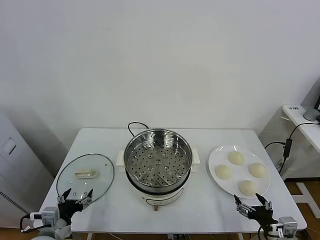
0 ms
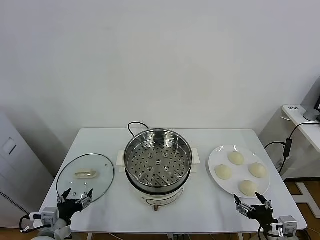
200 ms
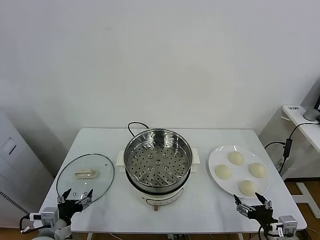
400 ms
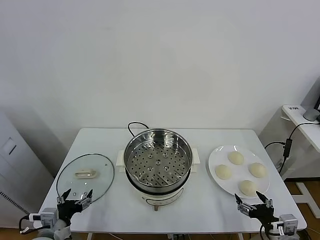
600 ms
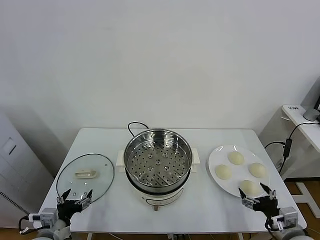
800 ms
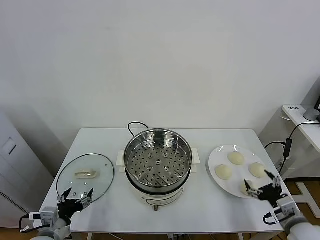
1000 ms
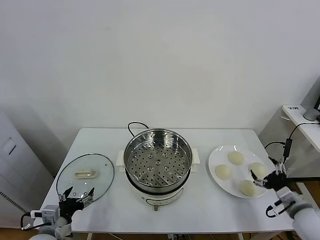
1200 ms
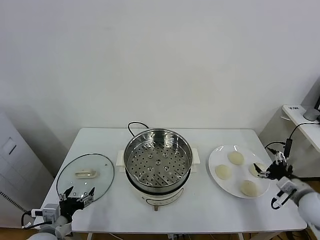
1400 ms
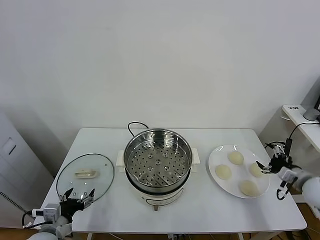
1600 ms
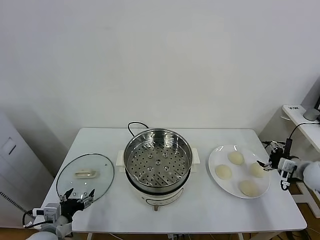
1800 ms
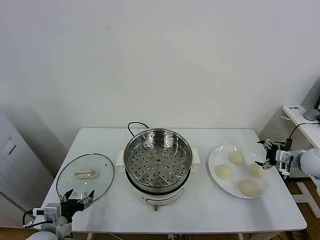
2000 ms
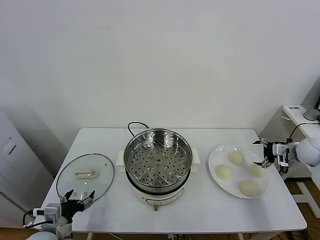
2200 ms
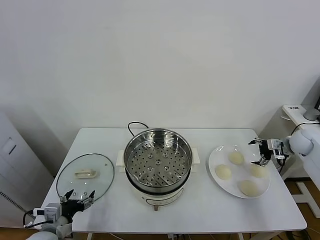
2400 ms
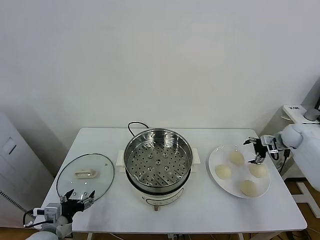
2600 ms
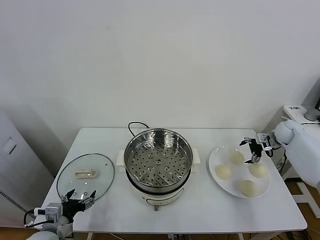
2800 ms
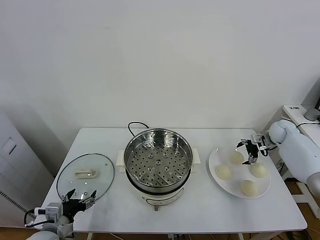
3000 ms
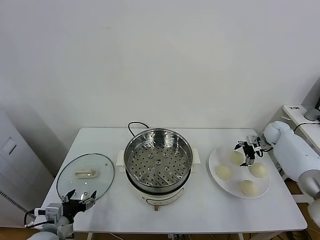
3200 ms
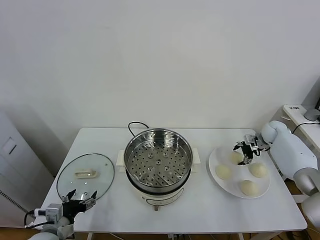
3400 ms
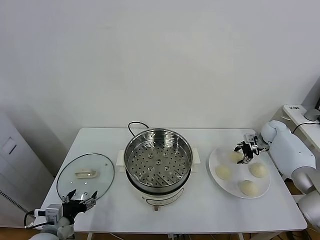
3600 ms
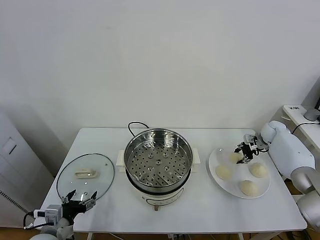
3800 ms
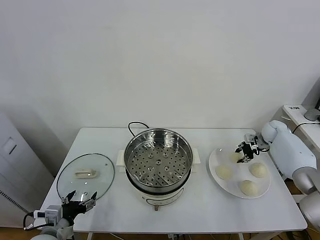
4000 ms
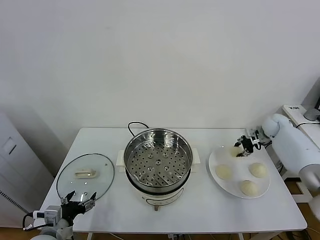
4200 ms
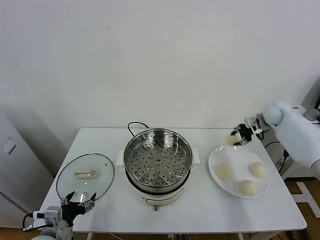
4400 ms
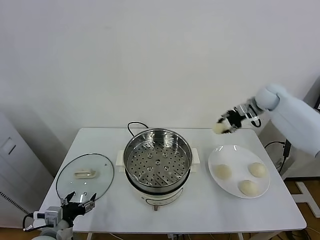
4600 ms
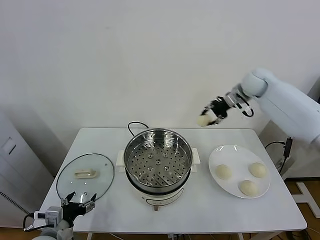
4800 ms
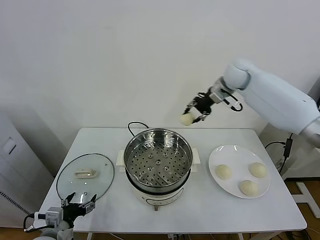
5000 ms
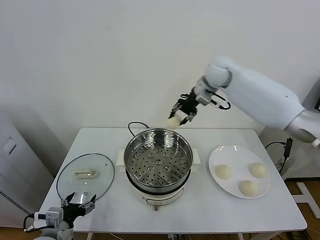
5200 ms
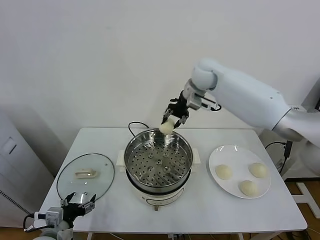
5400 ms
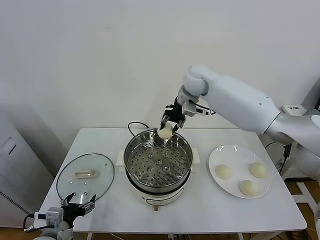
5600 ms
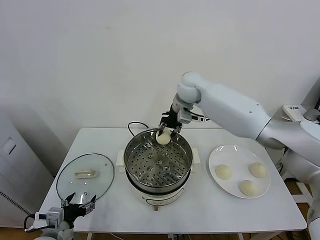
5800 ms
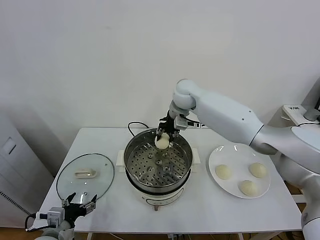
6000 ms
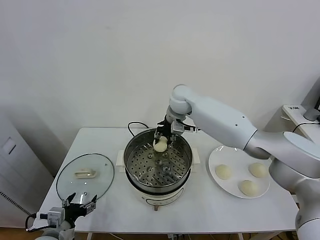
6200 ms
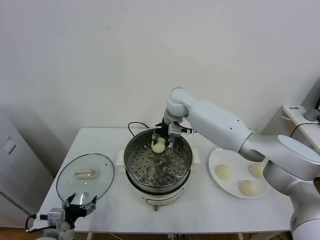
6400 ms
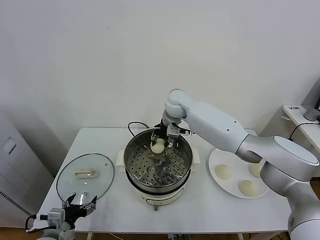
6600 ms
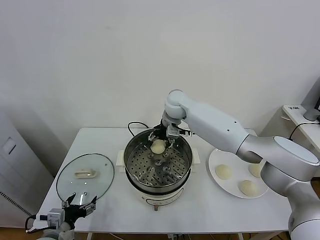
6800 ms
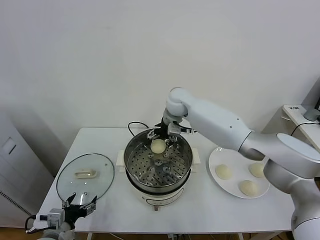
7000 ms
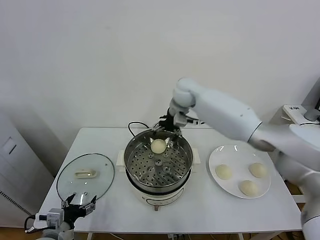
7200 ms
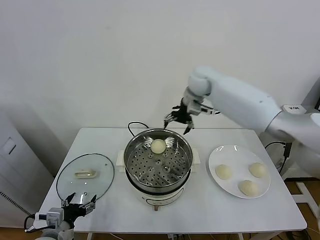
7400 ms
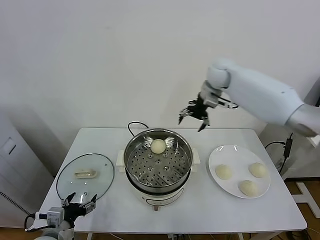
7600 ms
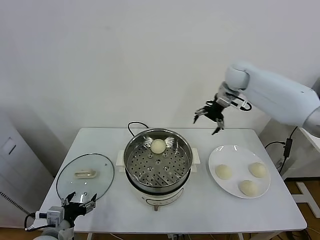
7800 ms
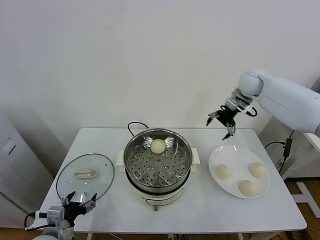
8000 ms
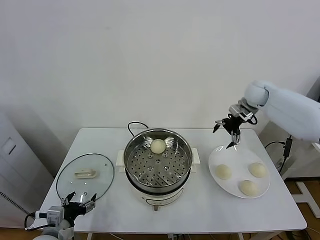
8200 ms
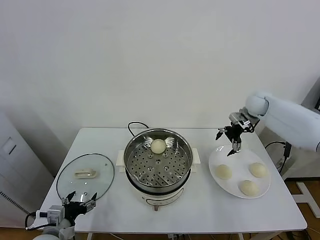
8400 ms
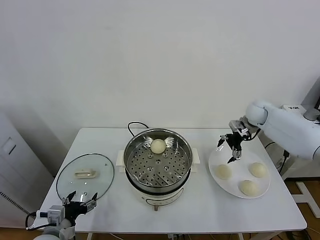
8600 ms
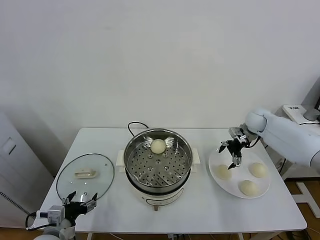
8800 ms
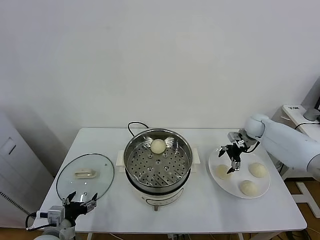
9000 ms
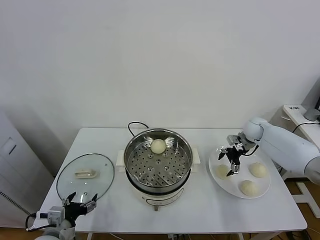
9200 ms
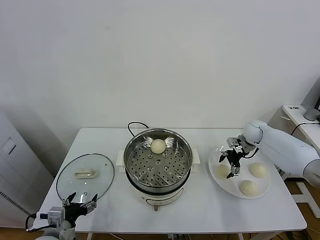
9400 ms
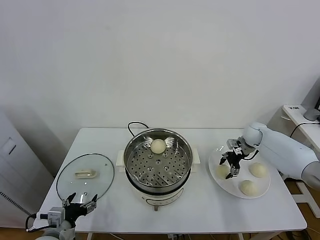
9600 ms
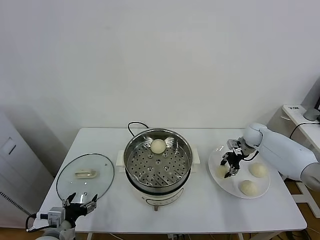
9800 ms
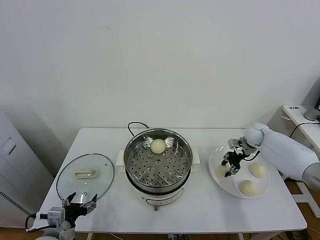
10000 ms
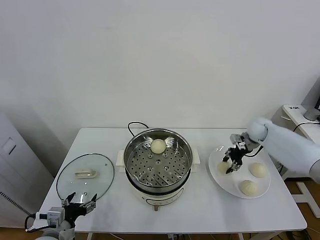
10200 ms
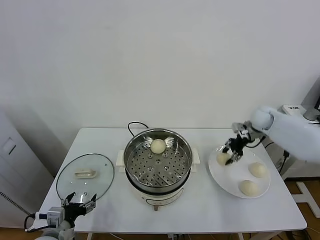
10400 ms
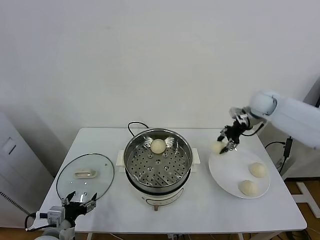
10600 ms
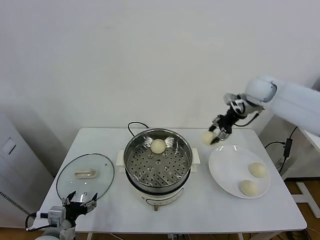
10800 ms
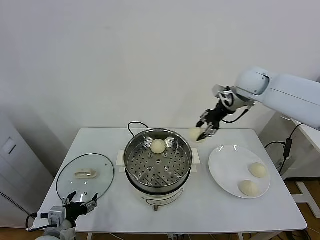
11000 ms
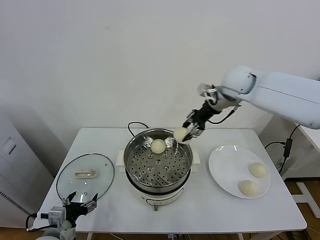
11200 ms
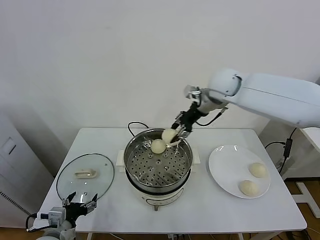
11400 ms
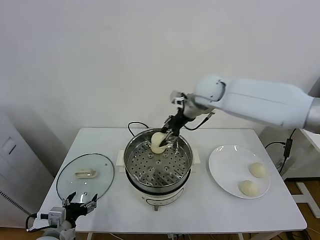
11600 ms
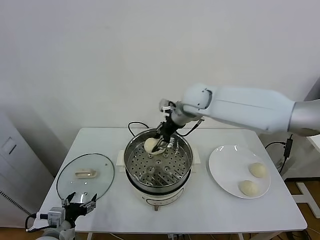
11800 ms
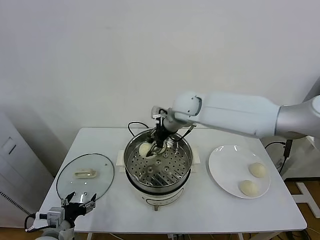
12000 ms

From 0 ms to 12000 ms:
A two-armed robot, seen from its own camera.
Task of the whole recording: take steamed baozi put them in steamer.
Step, from 0 ms to 3800 ms: Grasp the baozi in the plate with right gripper.
Step, from 4000 ms to 7000 ms: Place the baozi on the steamer with right gripper.
Step, from 7200 ms to 9800 ms: Grasp the baozi in the plate with right gripper.
From 1600 ms to 3000 ms: The right gripper goes approximately 25 cm forward.
From 3000 ms to 4400 ms: The right gripper goes about 15 cm upward and to the left, and closes its fingers.
From 4400 ms to 6000 ms: The right gripper travels to the left by about 35 cm.
From 6000 ms to 7600 ms: The right gripper moves to the right and upward, about 15 cm, and opens.
From 7600 ms to 9000 ms: The right gripper heads downward and to the right, covering some 25 cm.
From 9000 ms to 10400 ms: The right gripper moves upward, some 10 cm, and closes up.
From 10400 ms to 12000 ms: The right gripper travels to the left by roughly 30 cm.

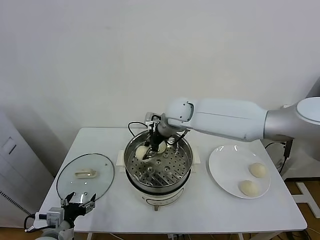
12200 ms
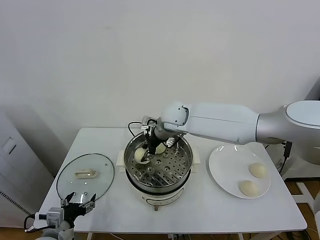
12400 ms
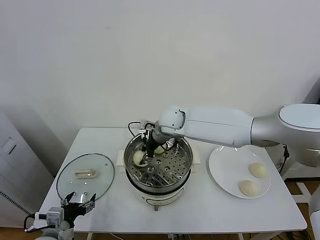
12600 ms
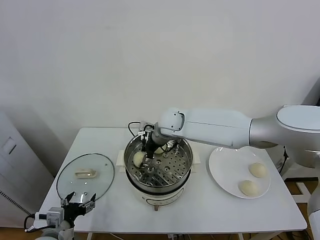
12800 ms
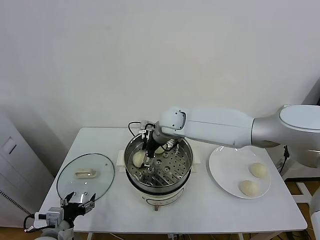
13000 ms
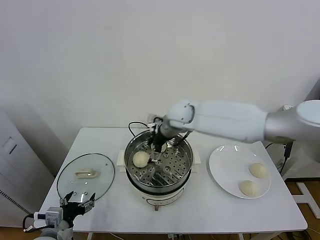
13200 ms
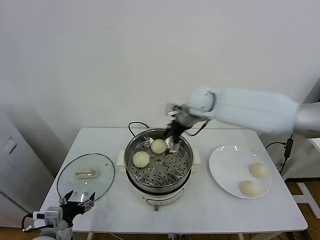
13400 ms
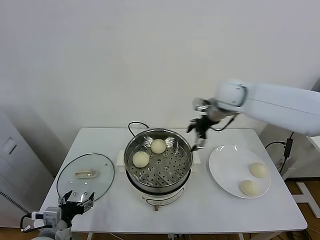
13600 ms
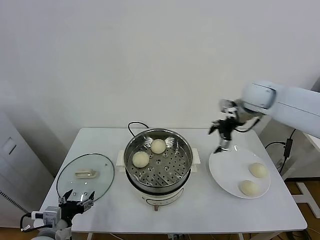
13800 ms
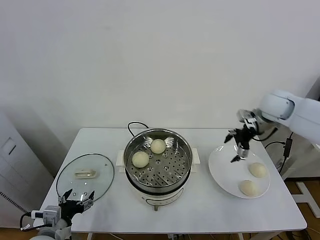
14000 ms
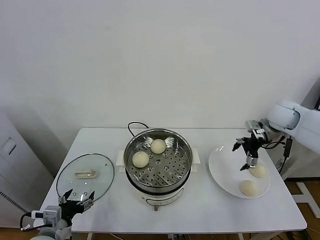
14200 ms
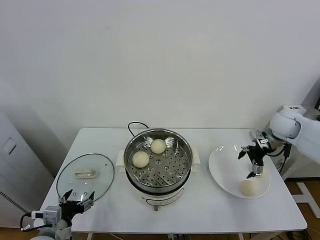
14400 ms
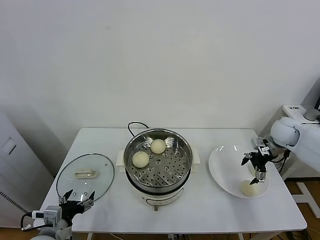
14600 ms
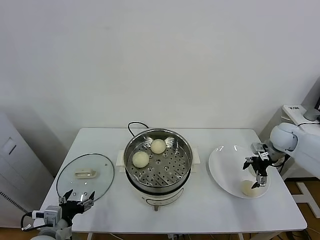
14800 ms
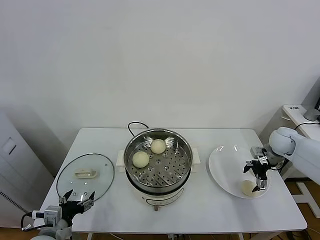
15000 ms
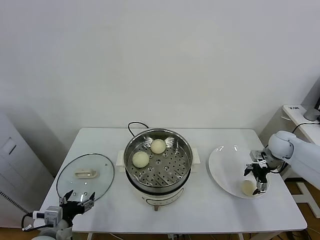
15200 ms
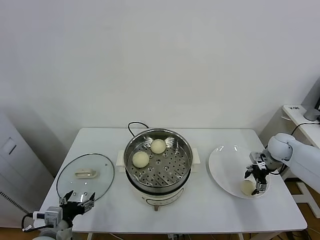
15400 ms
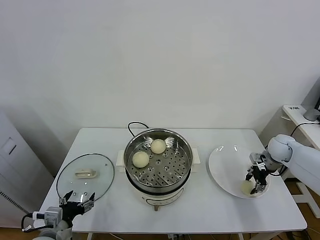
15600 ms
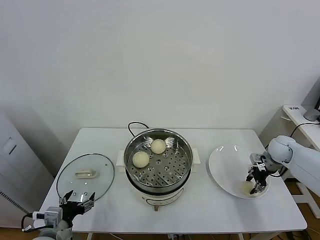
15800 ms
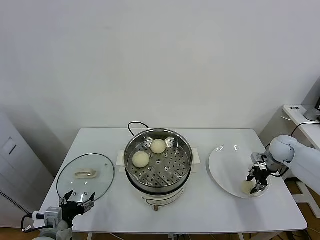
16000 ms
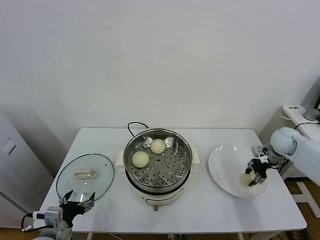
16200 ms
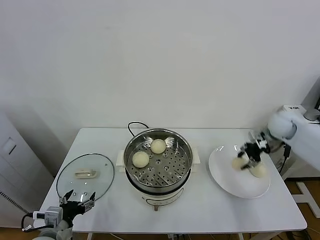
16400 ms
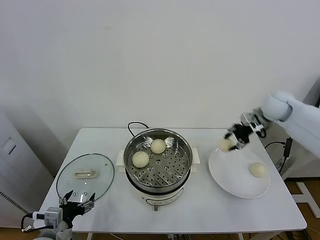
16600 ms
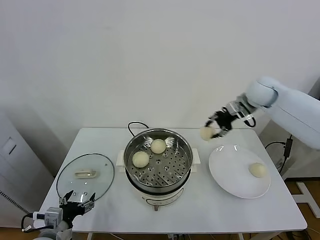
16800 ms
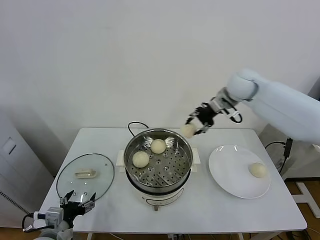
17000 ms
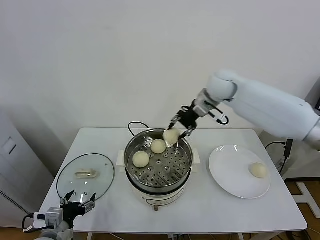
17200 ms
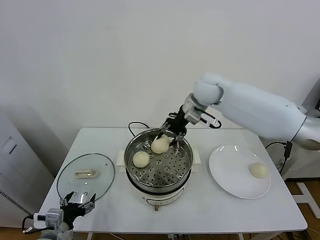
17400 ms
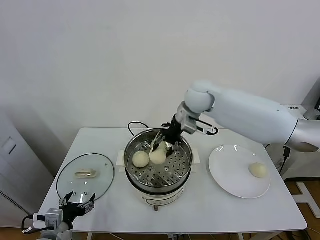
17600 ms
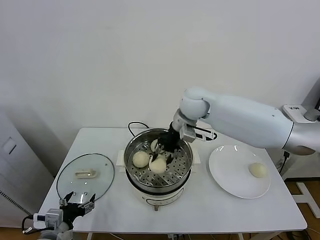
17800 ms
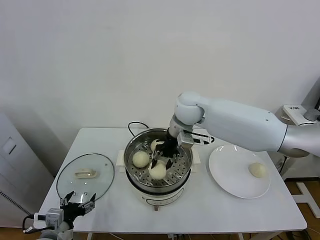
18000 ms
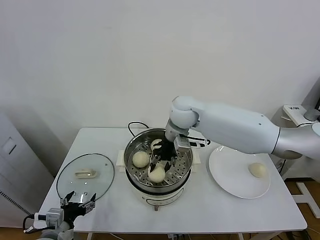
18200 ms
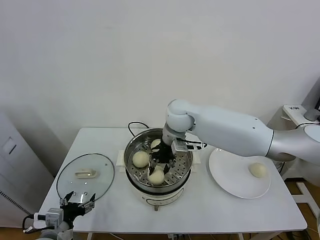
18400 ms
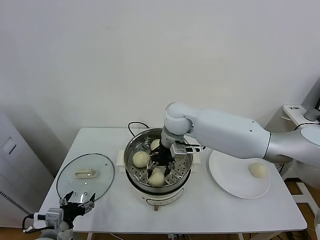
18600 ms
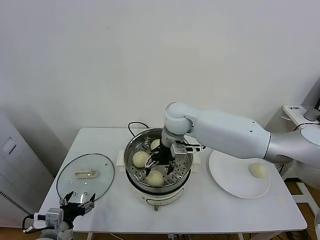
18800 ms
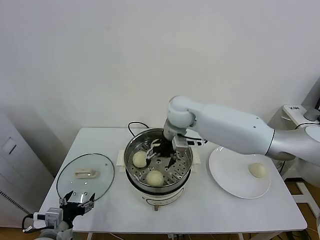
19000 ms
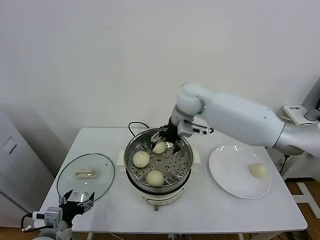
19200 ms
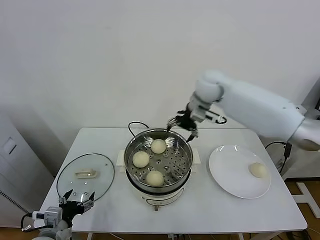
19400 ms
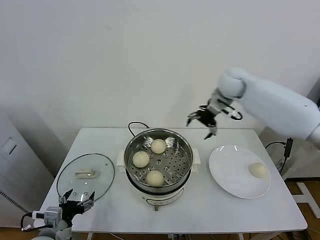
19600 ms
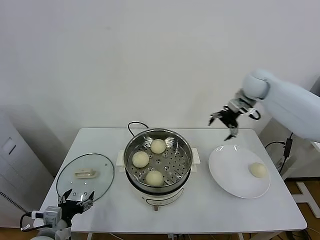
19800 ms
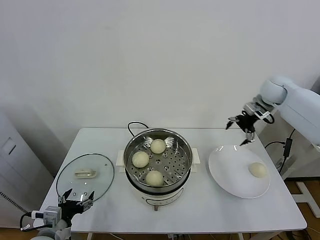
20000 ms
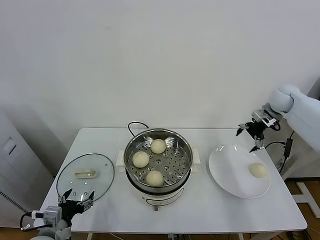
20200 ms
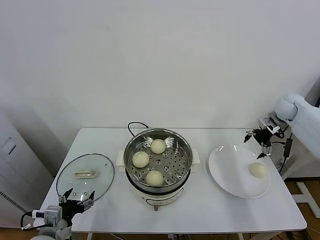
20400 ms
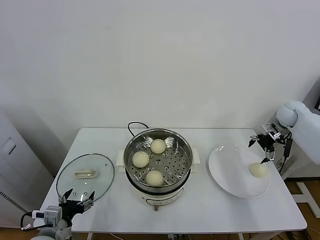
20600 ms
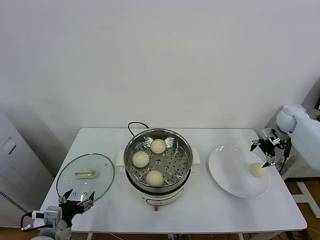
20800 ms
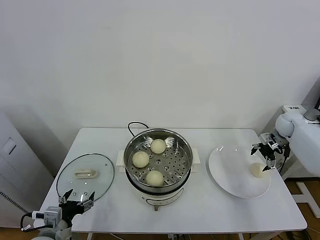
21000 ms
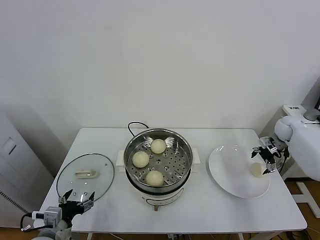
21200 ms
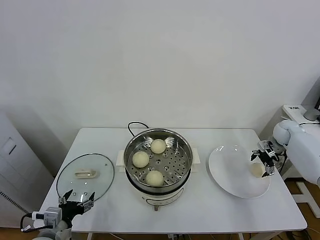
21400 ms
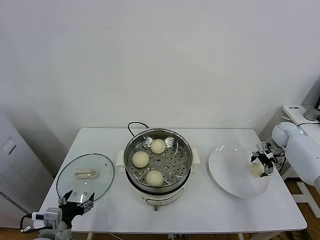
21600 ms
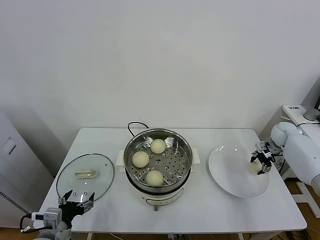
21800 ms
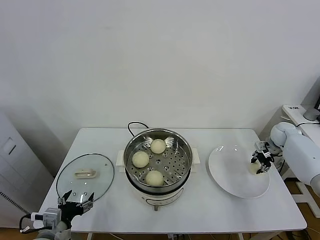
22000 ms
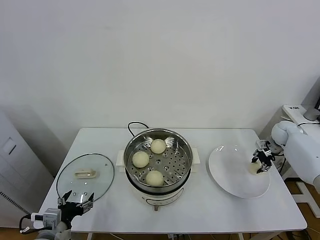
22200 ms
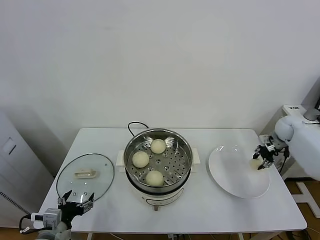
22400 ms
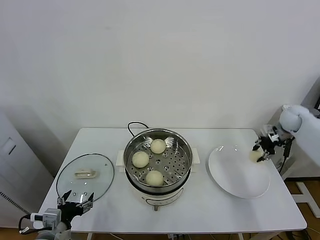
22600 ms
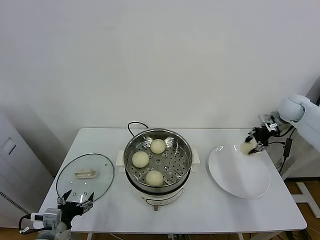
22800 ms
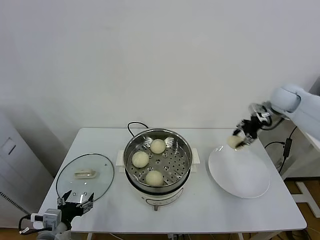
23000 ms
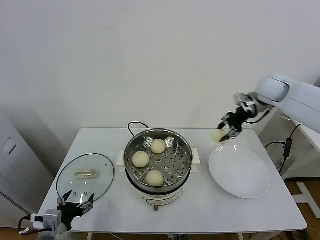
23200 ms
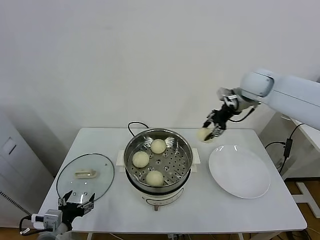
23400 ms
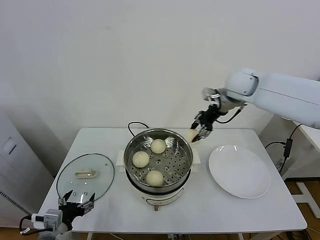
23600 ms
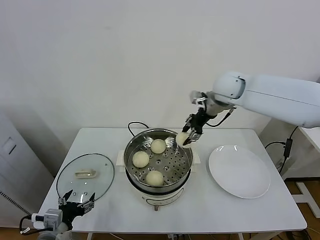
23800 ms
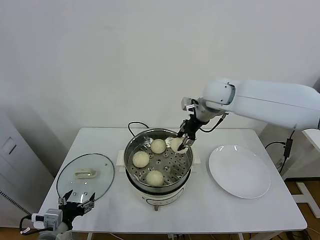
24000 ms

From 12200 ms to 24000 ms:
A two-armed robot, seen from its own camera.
Task of the whole recording: take steamed baozi put them in steamer.
Step, from 13400 ms to 15800 ms: Grasp the baozi in the plate with right gripper.
Step, from 16000 ms to 18800 ms: Place the baozi on the steamer with right gripper.
Step, from 19000 ms to 21800 ms: Grasp the baozi in the plate with right gripper.
From 12200 ms to 13600 ms: The right gripper moves to the right, about 20 cm, and opens up.
From 13600 ms to 15200 ms: The right gripper is displaced to the right and downward by about 30 cm.
From 15200 ms to 16600 ms: The right gripper shifts about 20 cm upward and to the left, and closes.
From 16600 ms to 18200 ms: The right gripper is displaced to the left by roughly 30 cm.
From 18200 ms to 19600 ms: The right gripper shifts roughly 20 cm to the right and forward, and opens.
From 19600 ms to 21000 ms: The right gripper shifts some 30 cm to the right and downward.
From 21000 ms to 22600 ms: The right gripper closes up.
From 22600 ms to 24000 ms: The right gripper moves to the left, approximately 30 cm.
